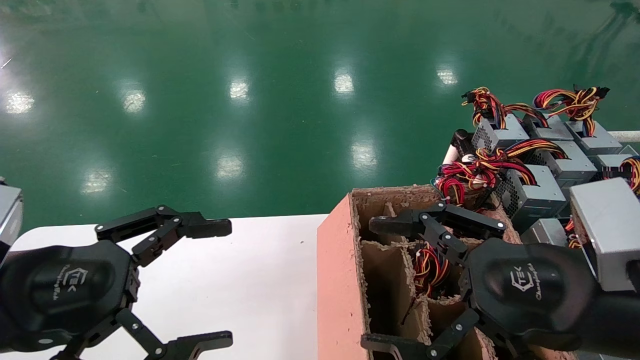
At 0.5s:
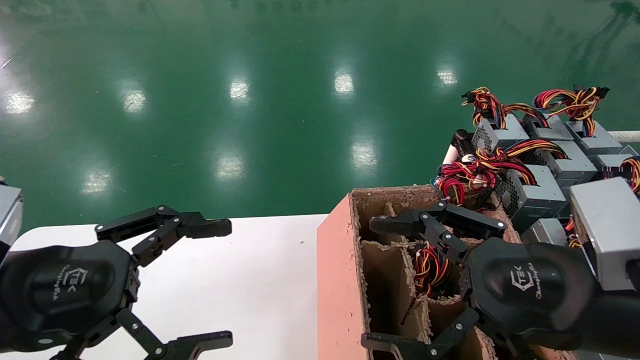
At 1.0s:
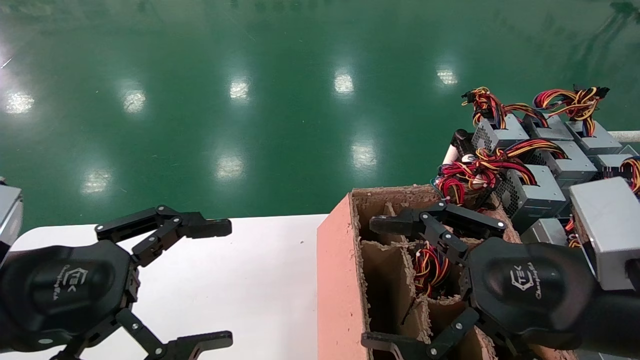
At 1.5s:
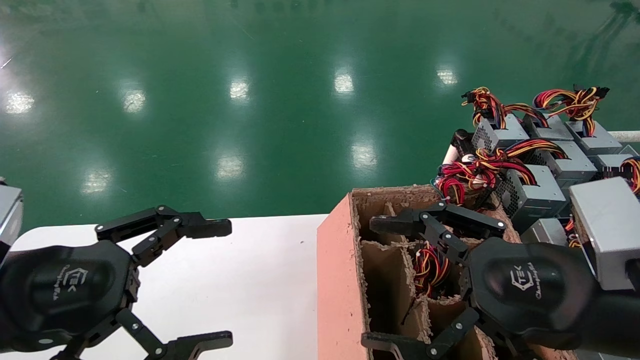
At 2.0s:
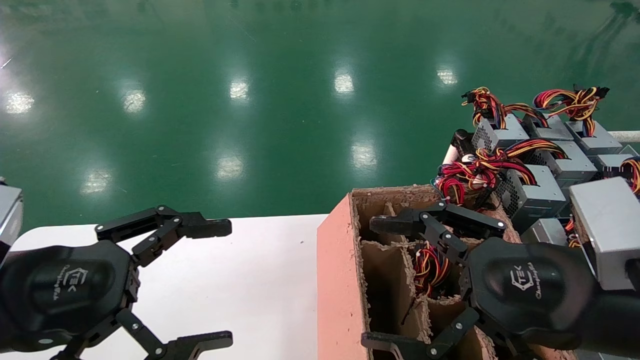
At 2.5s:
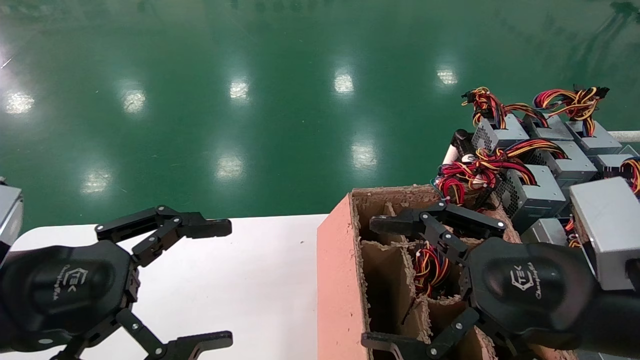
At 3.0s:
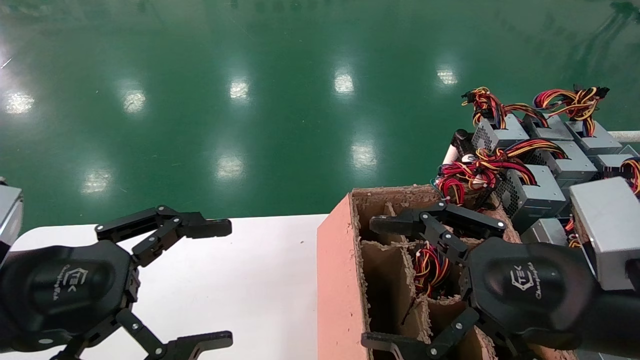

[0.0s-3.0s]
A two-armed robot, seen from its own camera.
0.0s to 3.0s: Both grippers stay about where they are.
